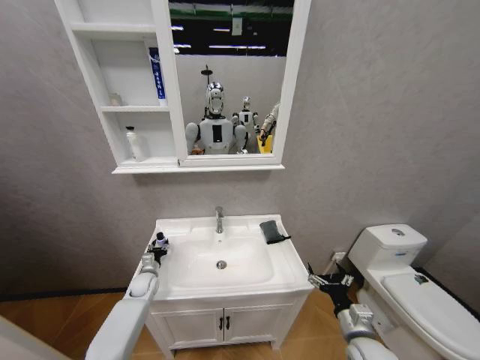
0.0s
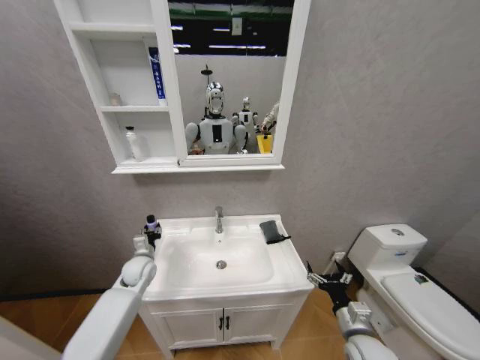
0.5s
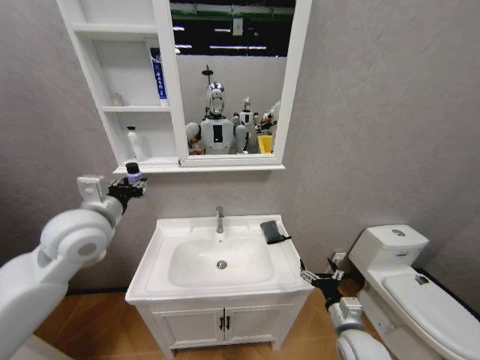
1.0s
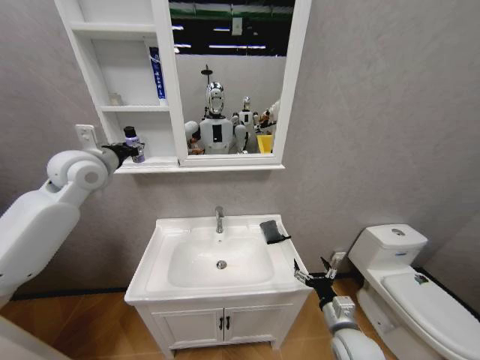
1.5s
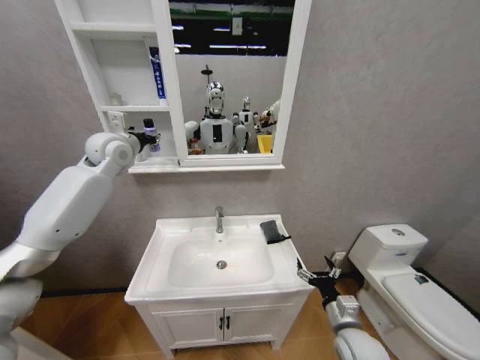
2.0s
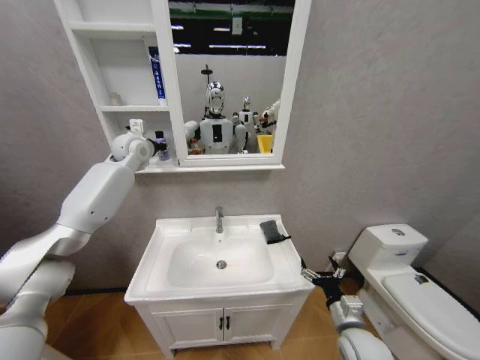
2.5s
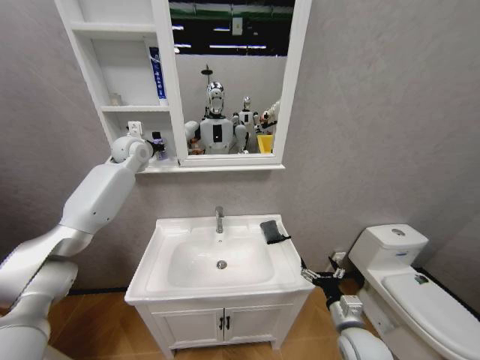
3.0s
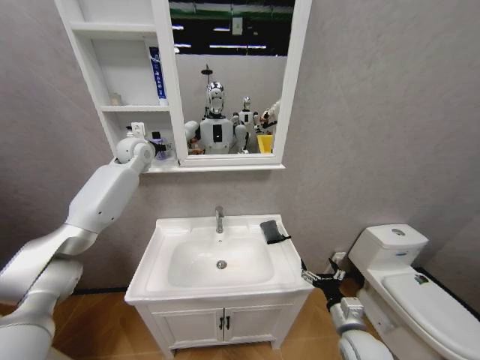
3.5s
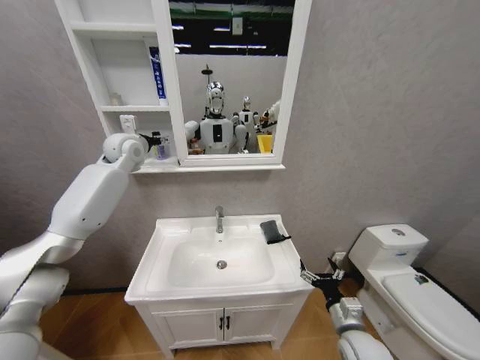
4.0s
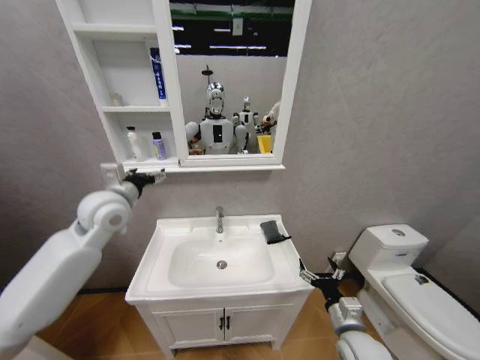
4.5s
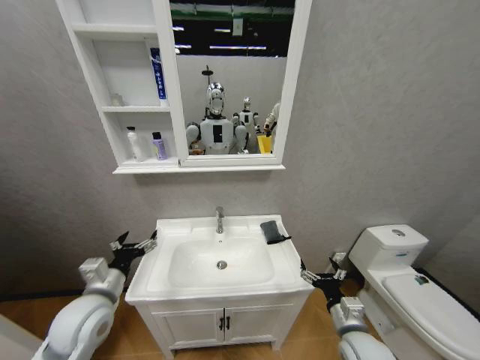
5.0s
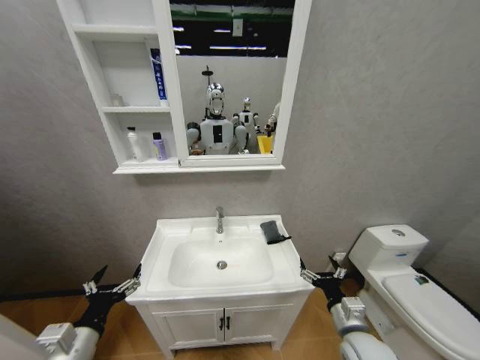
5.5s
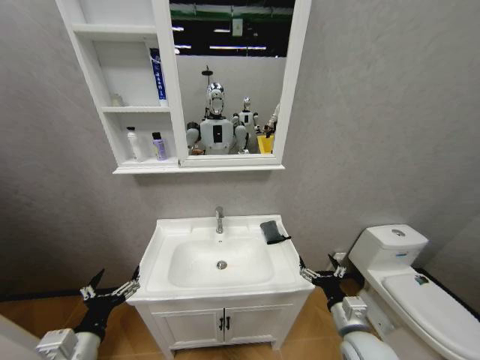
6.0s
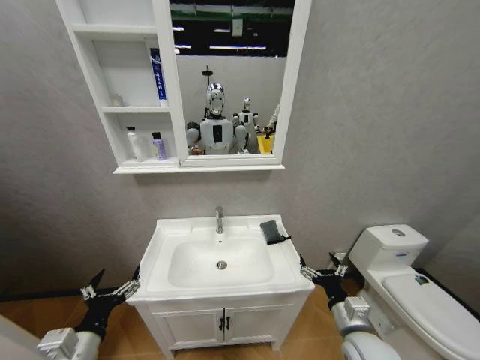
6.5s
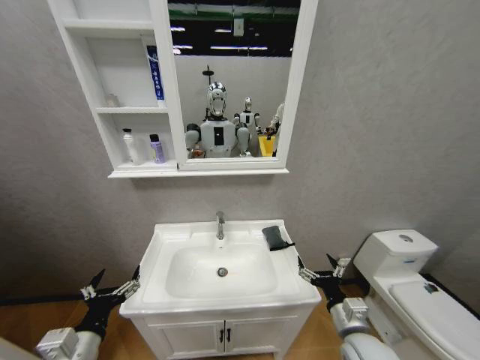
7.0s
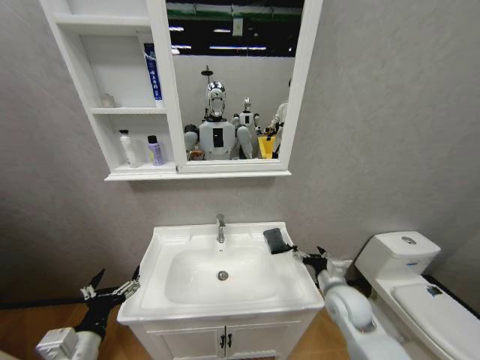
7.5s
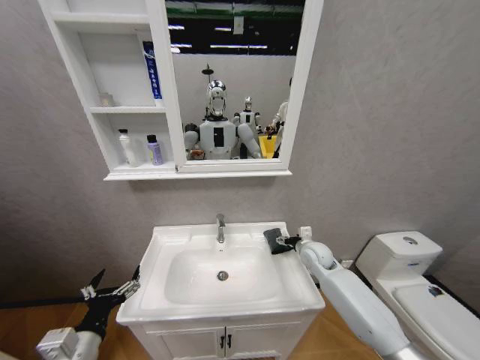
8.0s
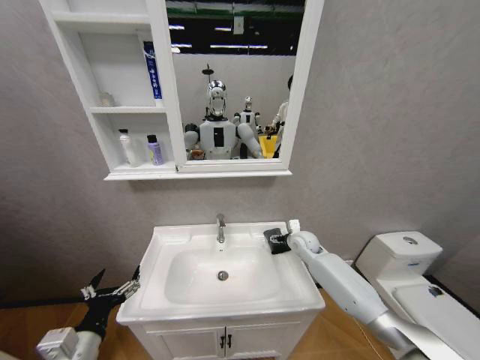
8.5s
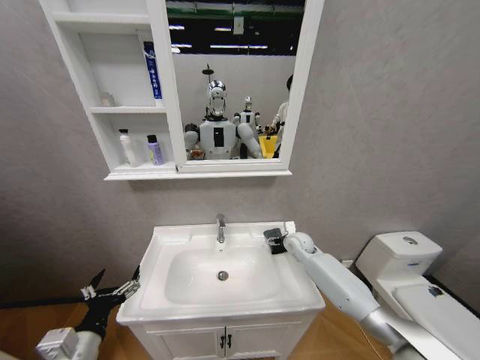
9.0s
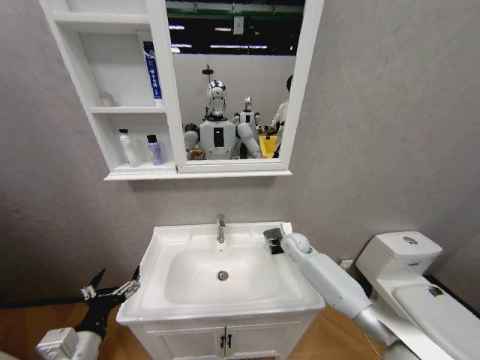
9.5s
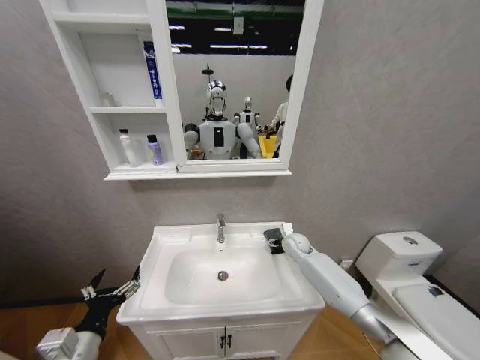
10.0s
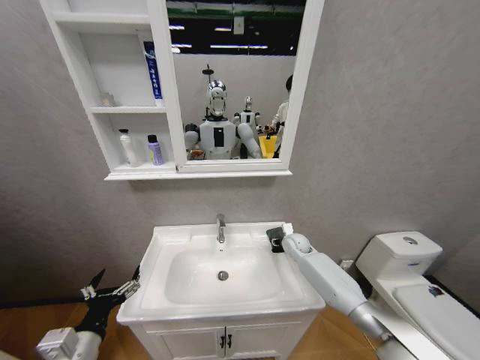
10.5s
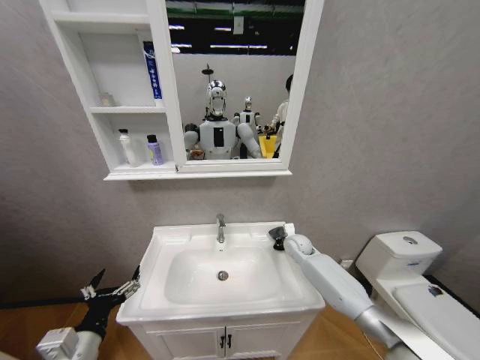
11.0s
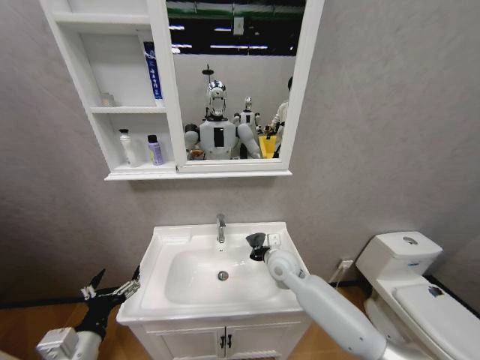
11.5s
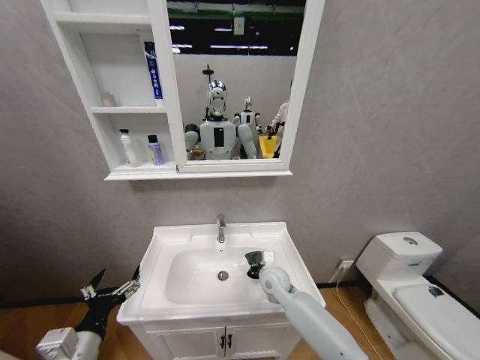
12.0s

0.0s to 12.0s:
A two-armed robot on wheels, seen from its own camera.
Task of the whole recording: Move facial cleanser and shampoo from washbasin to cabinet, then wipe washbasin with towel.
0.0s to 2.0s: The left gripper goes about 50 cm upward.
2.0s to 4.0s: The left gripper opens its fingers.
4.0s to 6.0s: The left gripper travels backward and downward by some 50 cm.
6.0s to 8.0s: The right gripper moves forward, some 25 cm.
8.0s to 10.0s: The right gripper is displaced forward by some 5 cm.
10.0s to 12.0s: The right gripper heads backward and to the left, covering about 20 cm, and closes.

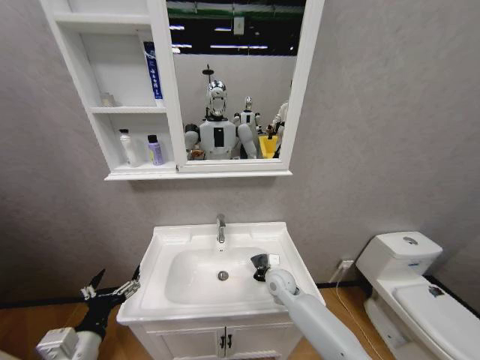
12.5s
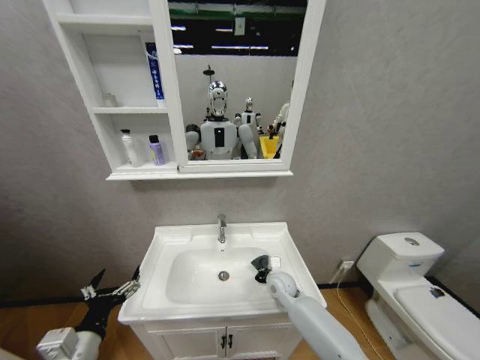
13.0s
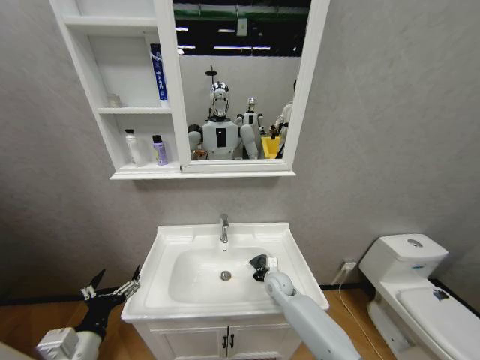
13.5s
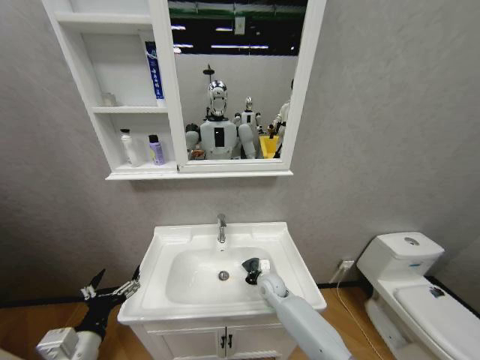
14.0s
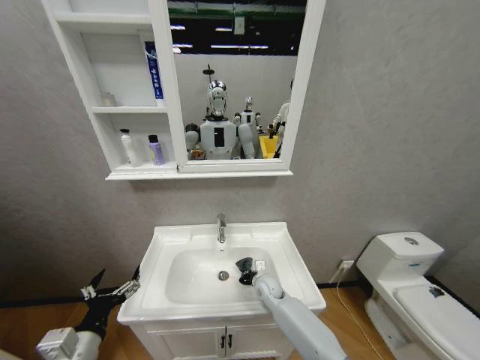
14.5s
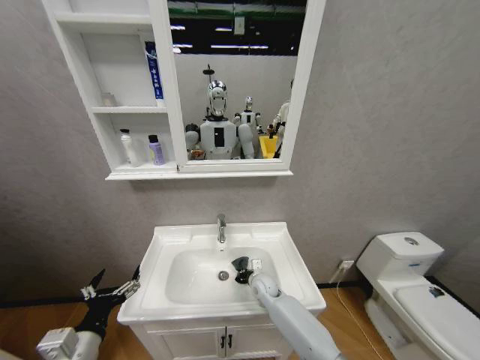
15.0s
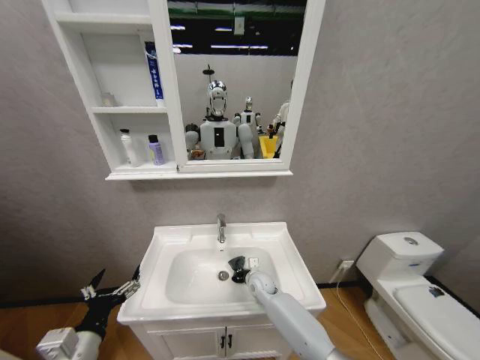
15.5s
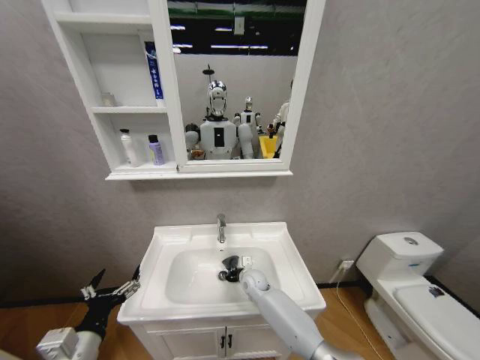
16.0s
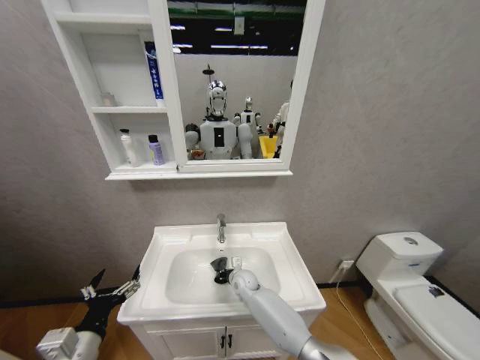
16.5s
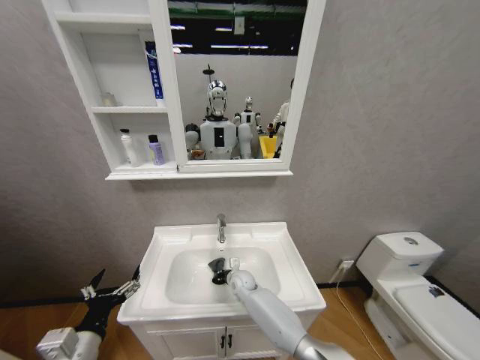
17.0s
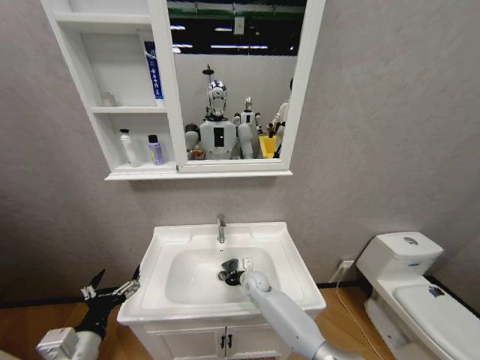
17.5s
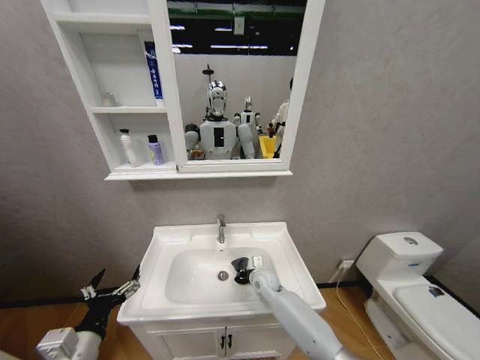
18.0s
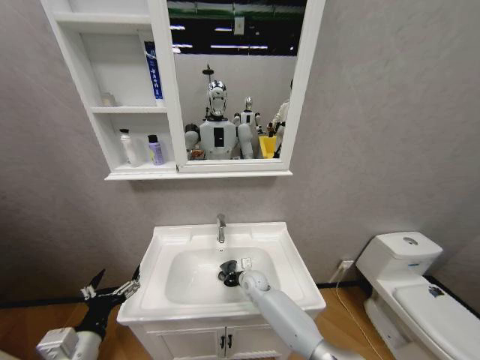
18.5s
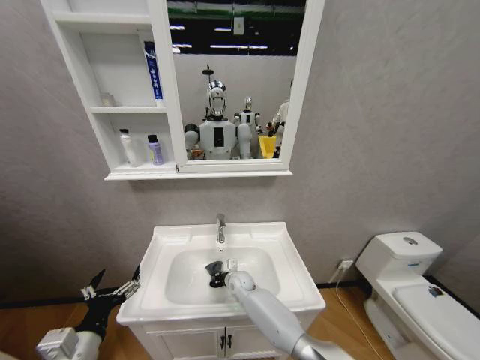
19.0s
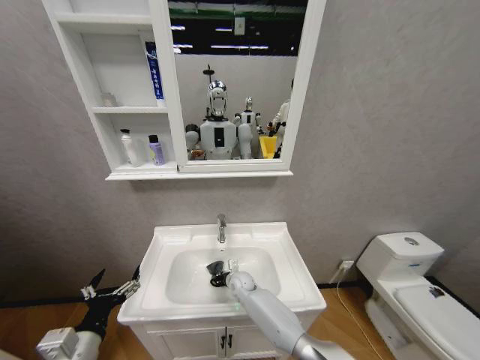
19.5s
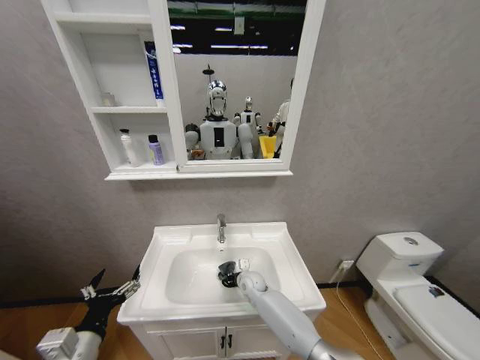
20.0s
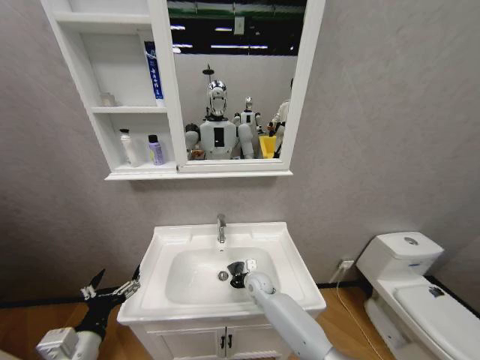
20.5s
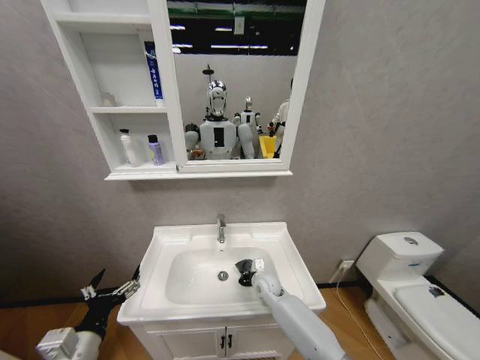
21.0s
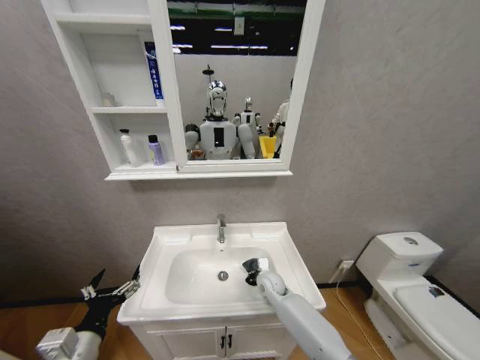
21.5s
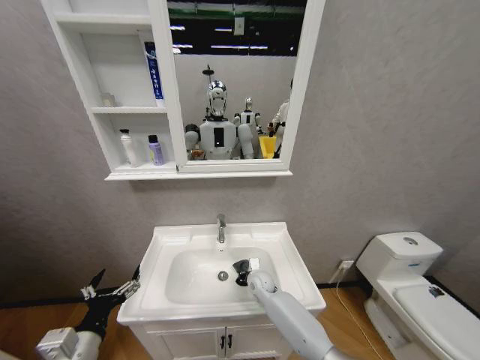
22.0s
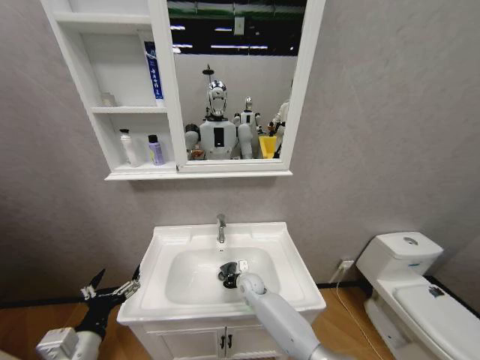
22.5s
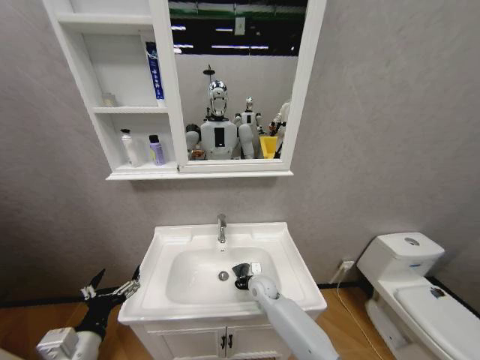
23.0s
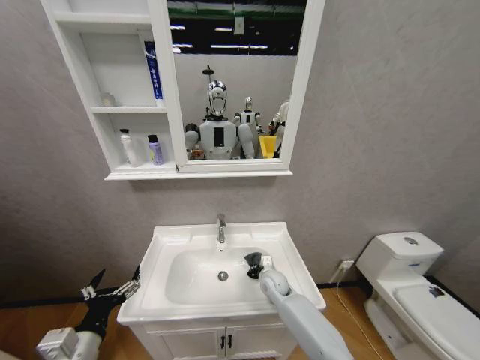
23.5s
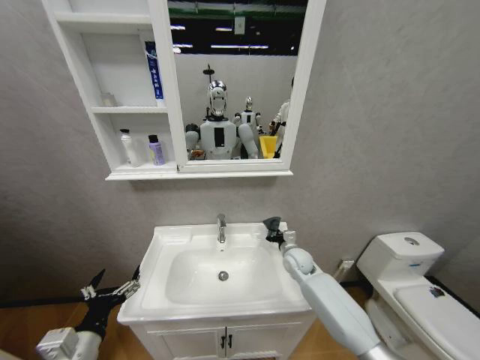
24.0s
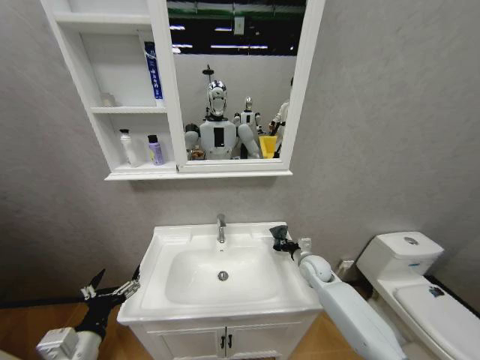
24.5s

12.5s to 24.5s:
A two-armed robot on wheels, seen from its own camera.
Task of the whole recording: Move facial cleanser and shampoo from washbasin to cabinet, then wipe washbasin with towel.
12.5s to 14.5s: The right gripper moves downward, about 5 cm.
14.5s to 16.5s: The right gripper shifts roughly 10 cm to the left.
20.5s to 22.5s: The grippers make only small movements.
22.5s to 24.5s: The right gripper moves to the right and upward, roughly 25 cm.

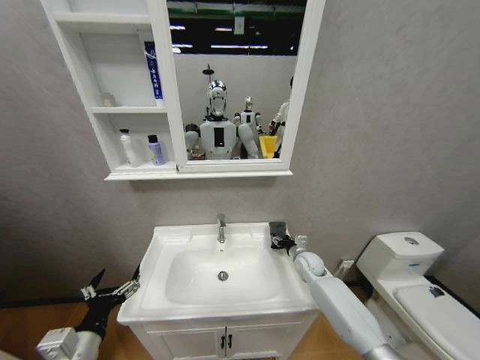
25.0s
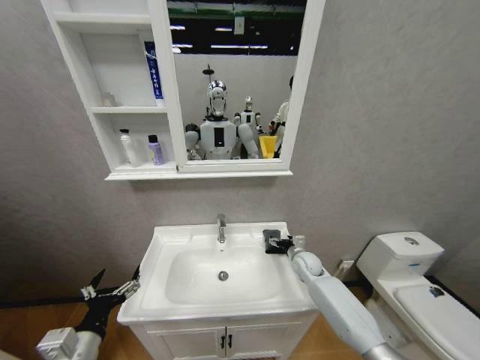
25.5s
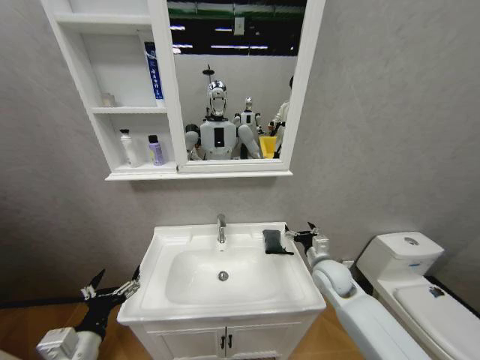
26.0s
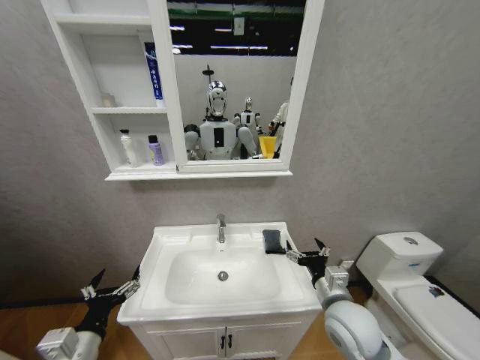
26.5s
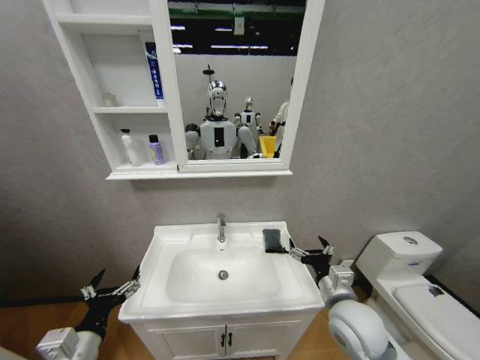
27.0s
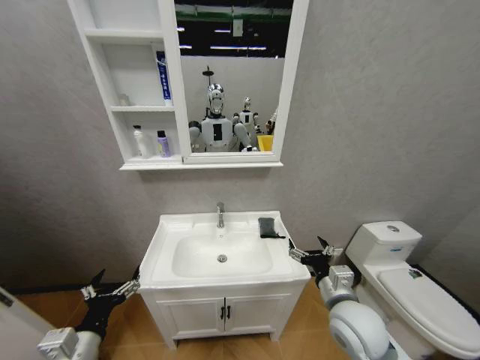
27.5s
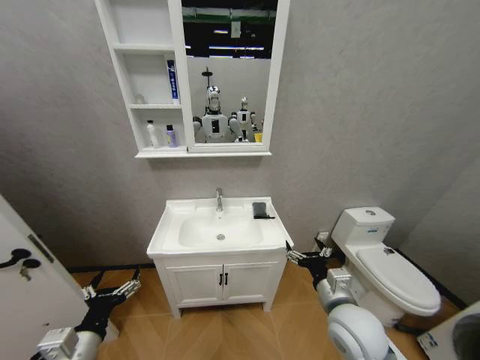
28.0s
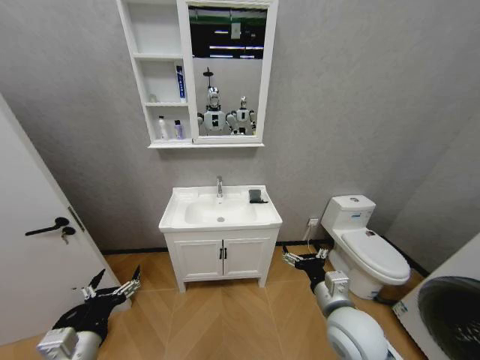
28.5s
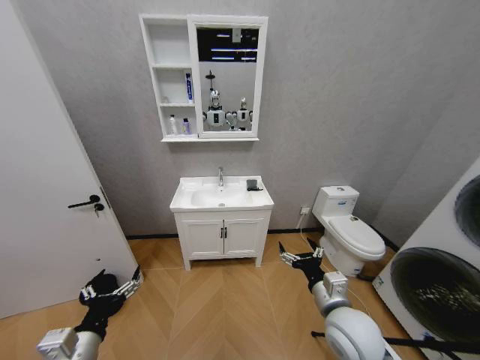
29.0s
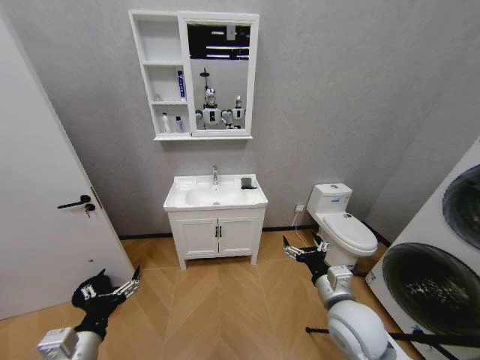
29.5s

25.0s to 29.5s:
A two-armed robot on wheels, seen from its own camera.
Task of the whole recording: Move facial cleanser and shampoo from washbasin to cabinet, then wipe washbasin with towel.
25.0s to 27.0s: The right gripper is displaced backward and upward by some 25 cm, and opens.
